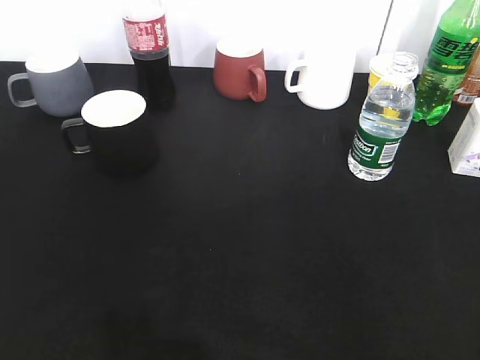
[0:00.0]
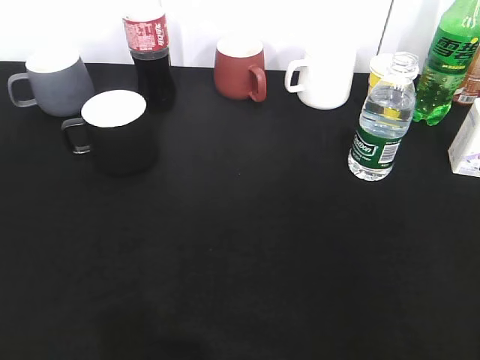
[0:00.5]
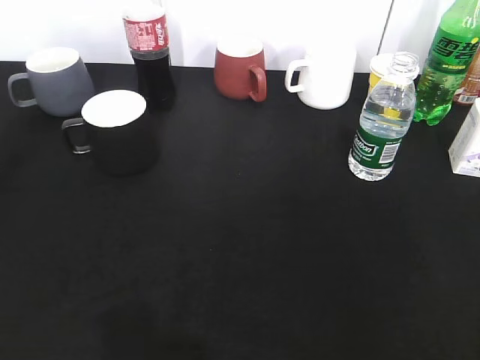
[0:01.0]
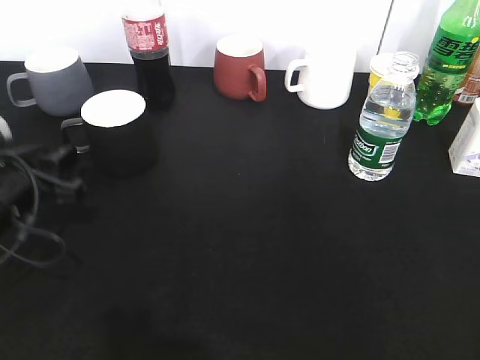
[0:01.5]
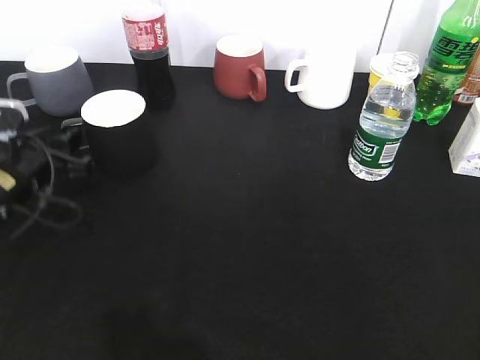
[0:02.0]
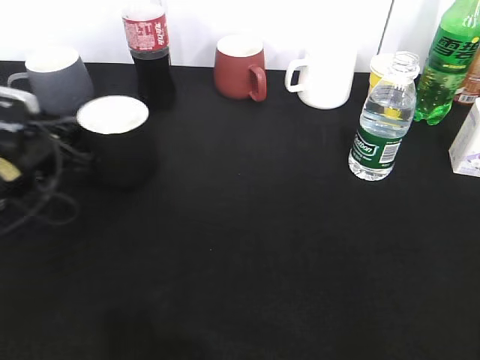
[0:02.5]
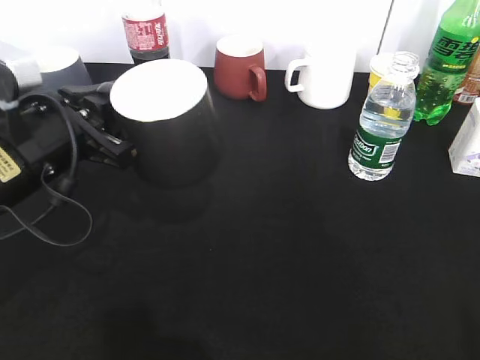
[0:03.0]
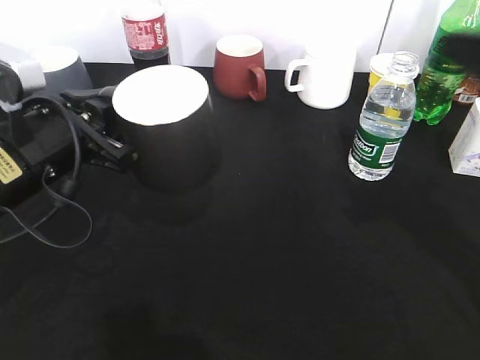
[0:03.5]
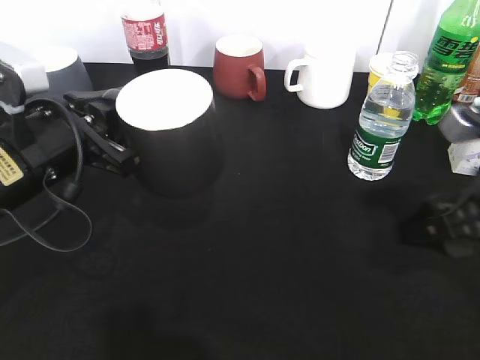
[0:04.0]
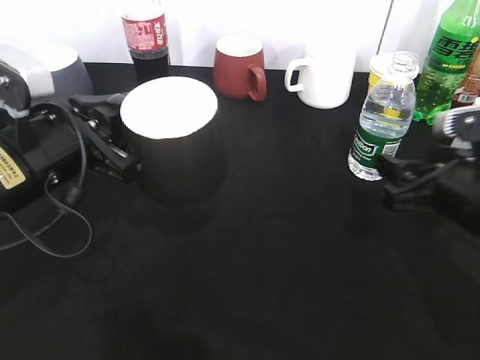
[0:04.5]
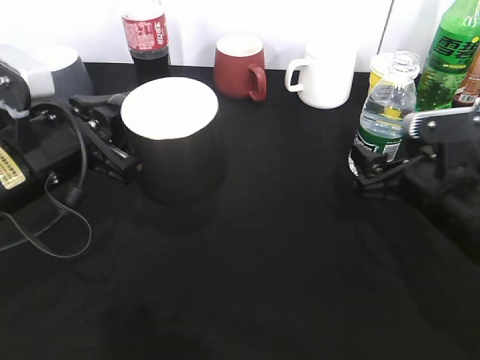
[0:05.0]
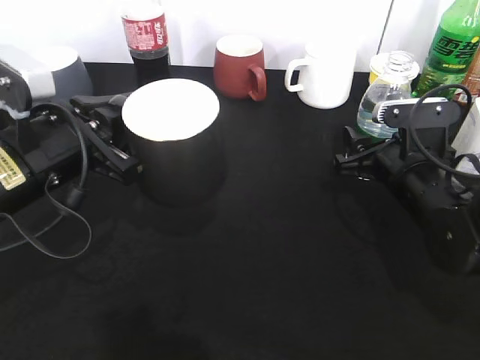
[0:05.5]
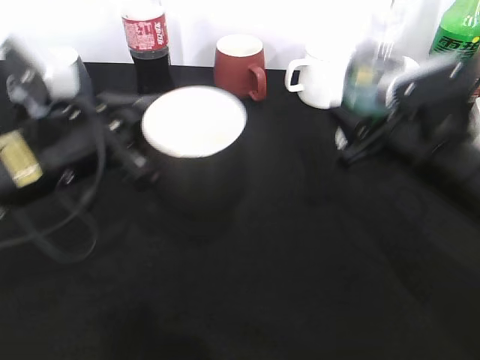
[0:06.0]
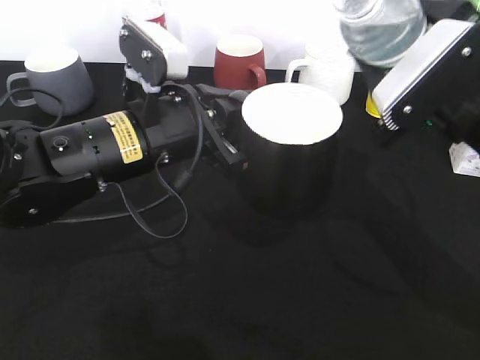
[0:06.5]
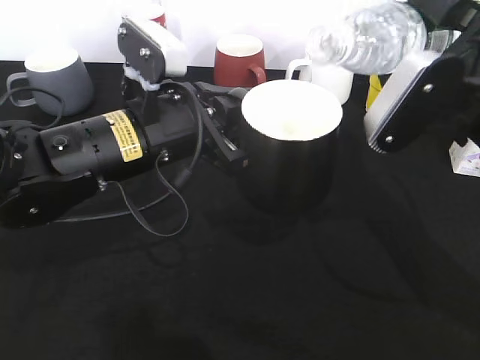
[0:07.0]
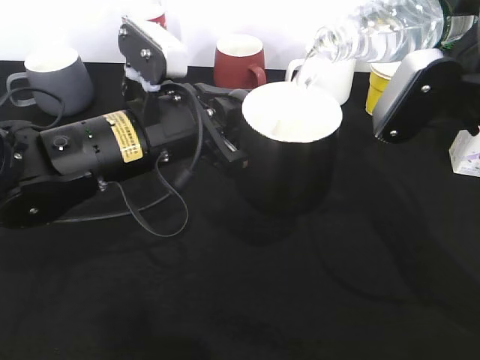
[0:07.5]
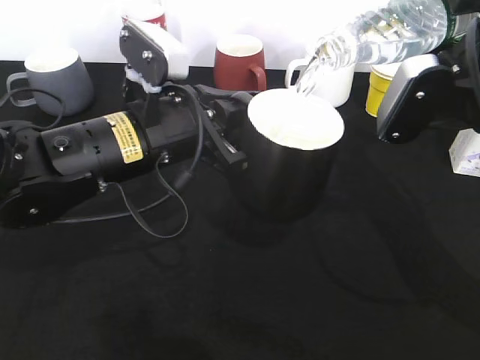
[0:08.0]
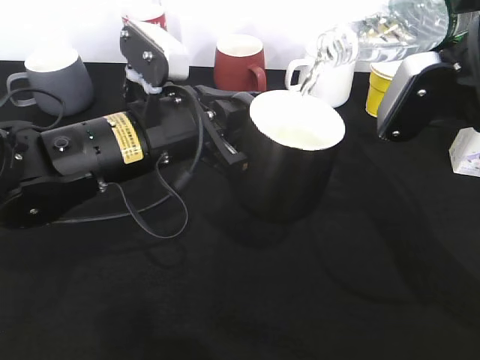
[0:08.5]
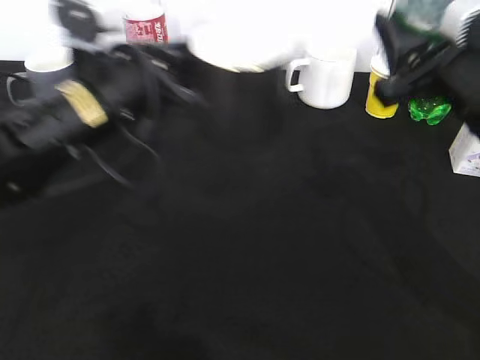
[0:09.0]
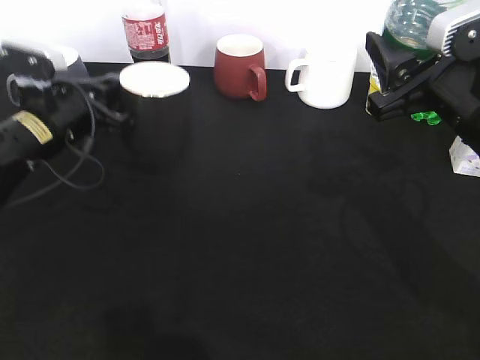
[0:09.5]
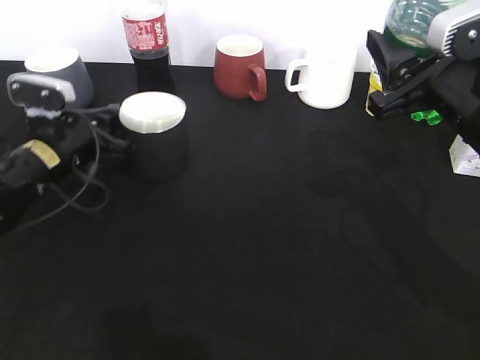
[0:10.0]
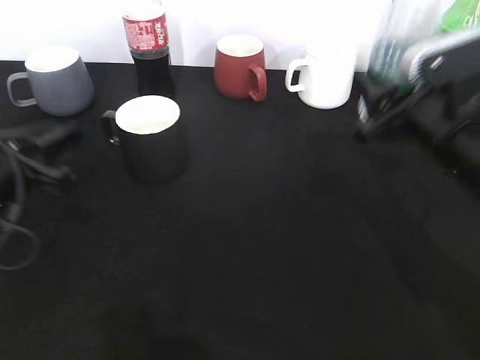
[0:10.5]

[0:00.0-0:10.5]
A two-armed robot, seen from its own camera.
Step, 0:00.5 to 0:02.0: Grasp the black cup with left gripper.
Step, 0:03.0 to 0:05.5: Grasp the bottle with water with right gripper.
Step, 0:06.0 to 0:08.5: Pour the water from bottle to cup with right gripper.
Step, 0:09.0 to 0:10.0: Place the black cup on the table with left gripper.
0:00.0 to 0:02.0: The left gripper moves forward and downward, about 35 cm.
0:02.0 to 0:04.0: The right gripper shifts about 20 cm forward. The left gripper heads upward, to the right and backward, covering approximately 10 cm, and closes its fingers.
0:04.0 to 0:06.5: The left gripper goes about 10 cm to the right. The right gripper is displaced to the left and upward by roughly 10 cm, and closes.
0:08.5 to 0:10.5: The left gripper is displaced to the left by some 15 cm, and opens; the right gripper travels downward by roughly 5 cm.

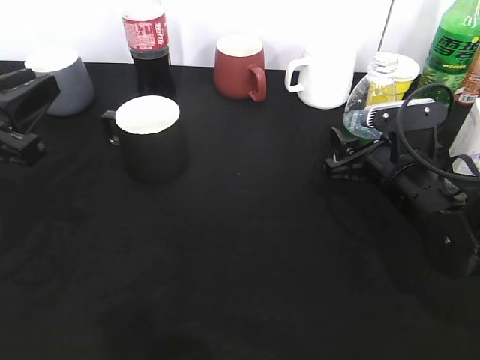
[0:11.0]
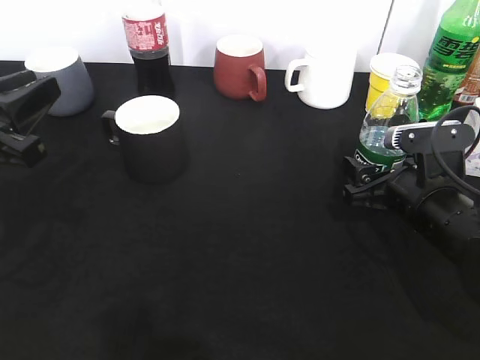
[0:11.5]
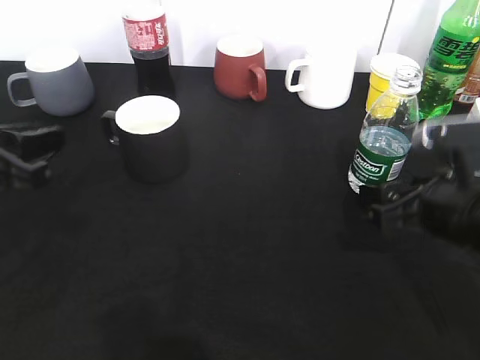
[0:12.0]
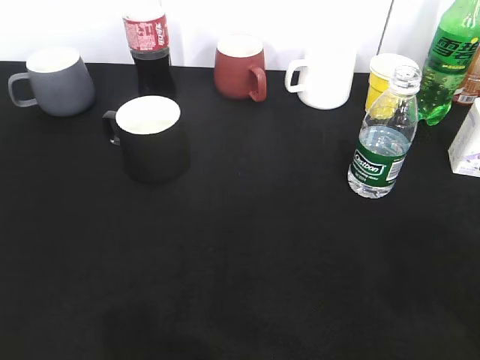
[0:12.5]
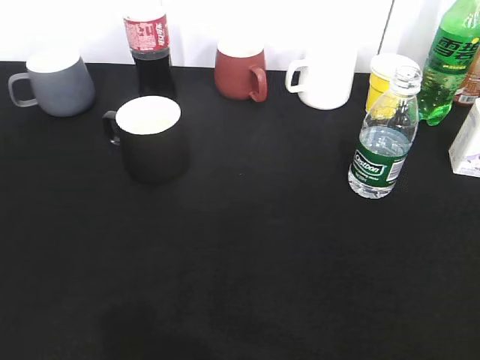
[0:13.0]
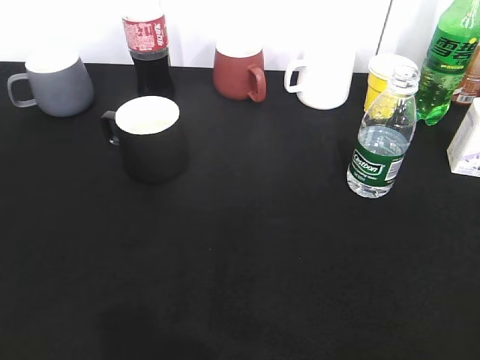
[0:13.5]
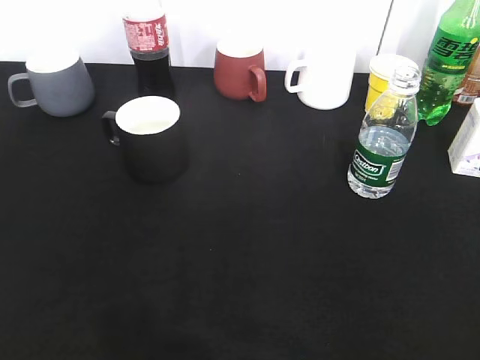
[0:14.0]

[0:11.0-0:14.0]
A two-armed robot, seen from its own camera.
Step, 0:11.0 to 0:12.0: Place the water bottle on the table with right gripper.
0:11.0 to 0:12.5: The right gripper heads upward and backward, covering approximately 30 cm, and opens. The left gripper travels backward and upward by roughly 20 cm.

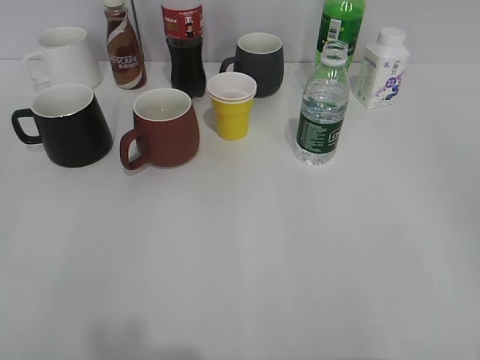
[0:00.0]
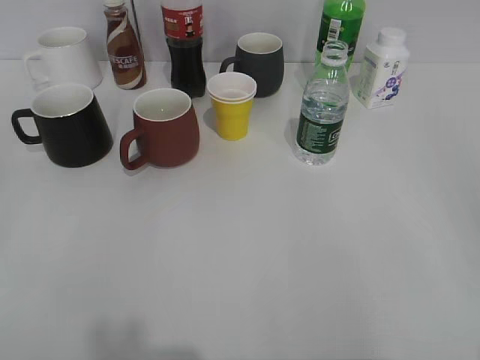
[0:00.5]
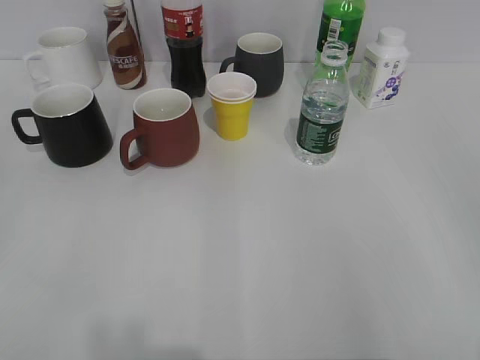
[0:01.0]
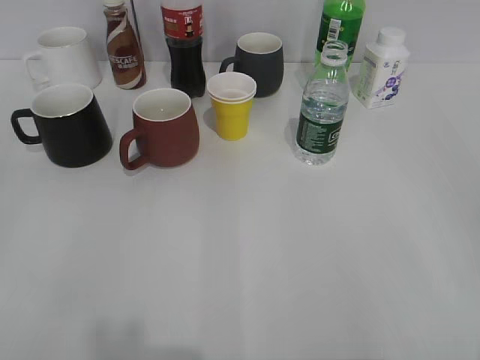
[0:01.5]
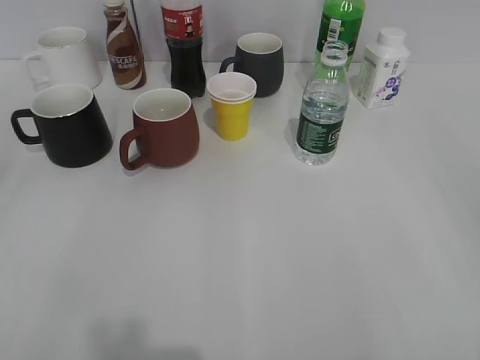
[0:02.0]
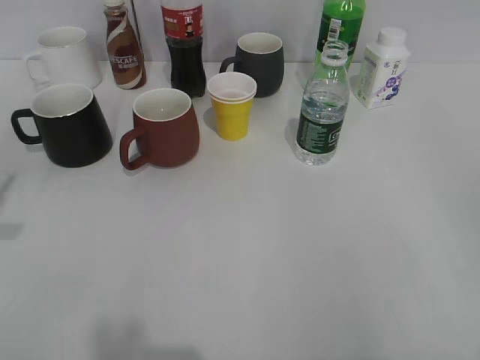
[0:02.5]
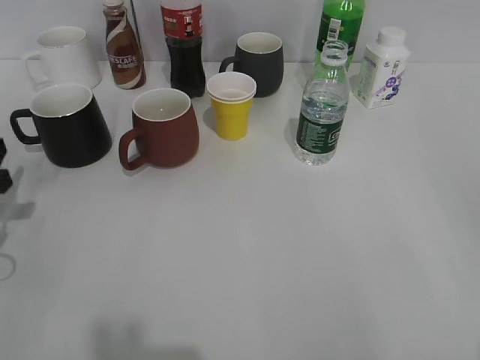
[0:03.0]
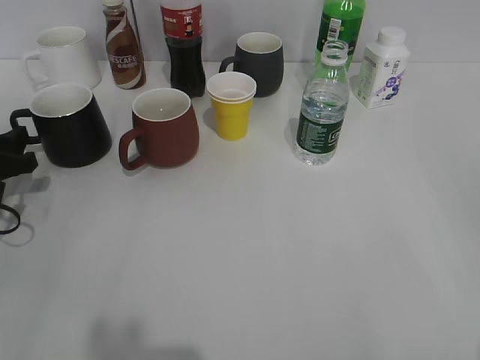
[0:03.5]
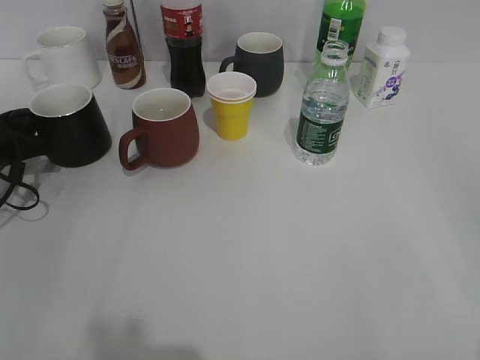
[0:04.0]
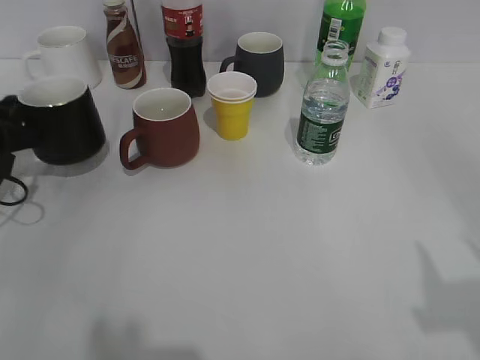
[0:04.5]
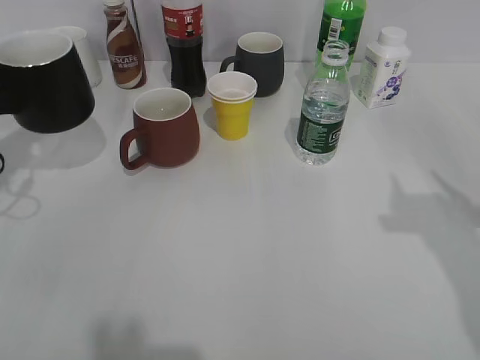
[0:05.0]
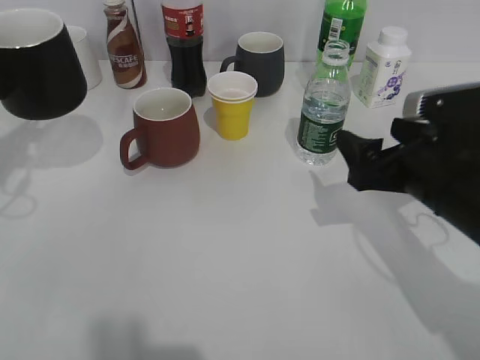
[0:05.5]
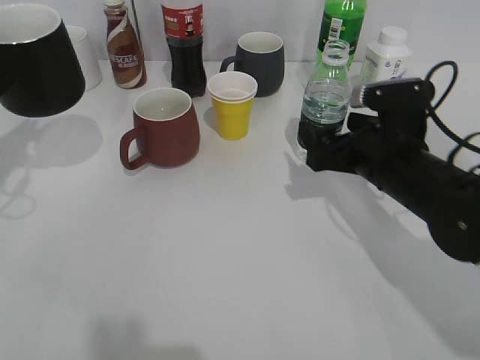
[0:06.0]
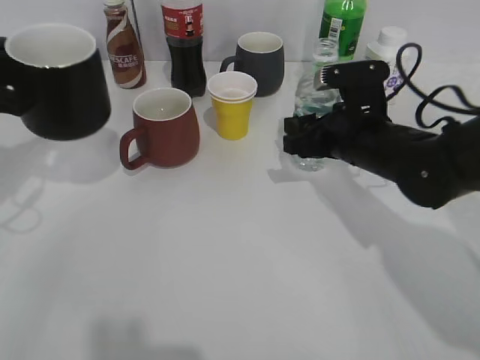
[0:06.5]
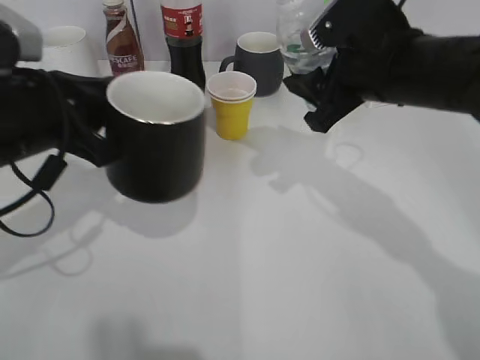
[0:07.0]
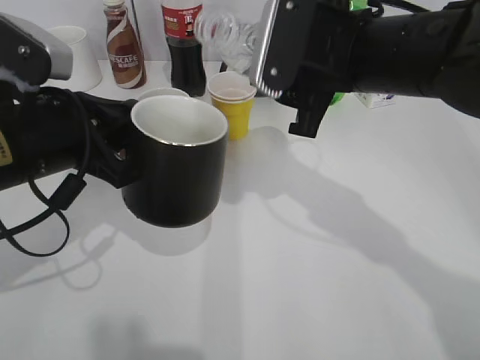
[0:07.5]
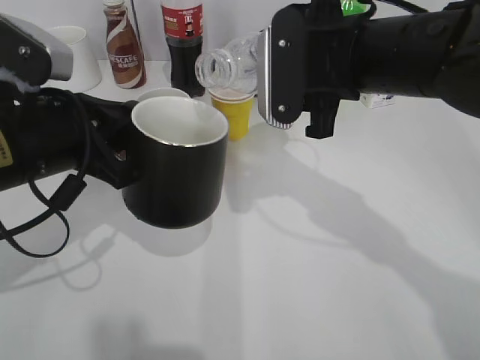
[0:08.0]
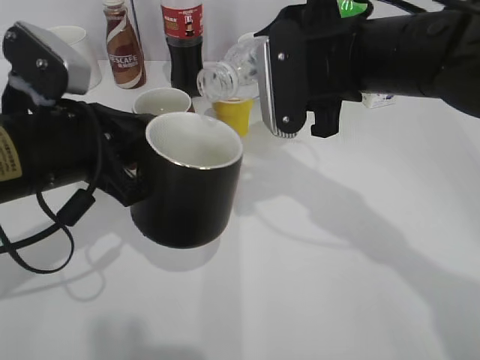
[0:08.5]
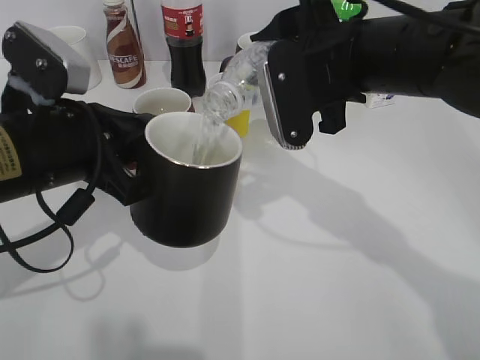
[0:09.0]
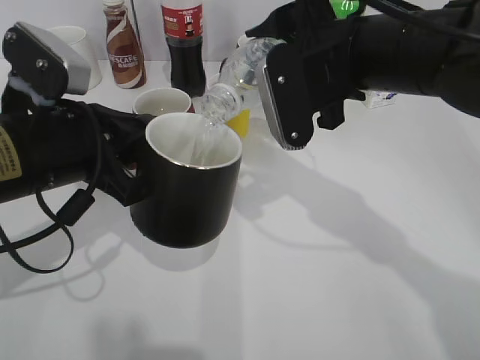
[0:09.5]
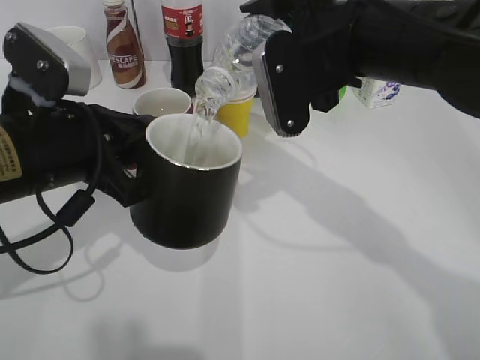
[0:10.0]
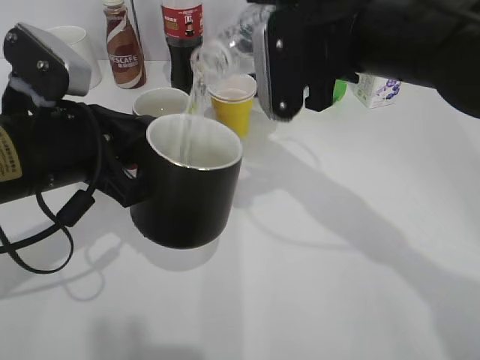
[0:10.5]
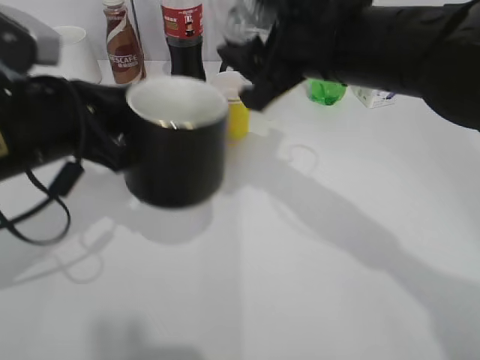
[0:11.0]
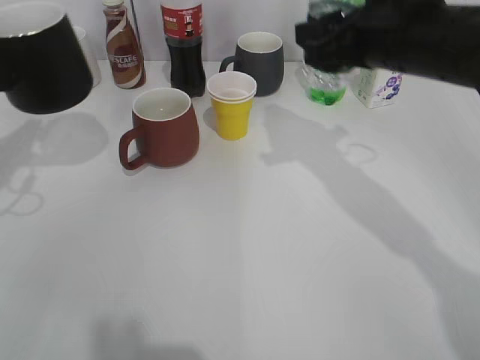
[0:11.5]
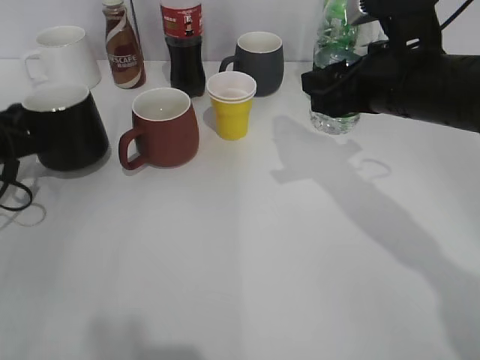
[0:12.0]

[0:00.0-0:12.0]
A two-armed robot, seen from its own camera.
Step, 0:02.0 to 0:04.0: Grasp the black cup with left gripper.
Step, 0:04.5 to 0:05.0: Lift the black cup with left gripper.
Step, 0:05.5 to 0:06.0: Grasp the bottle with water with right gripper.
Step, 0:06.5 to 0:10.5: Pour the water from bottle to cup with right gripper.
0:02.0 to 0:04.0: The left gripper moves forward and downward, about 40 cm.
0:04.0 to 0:06.0: The right gripper is displaced forward, downward and to the left by about 35 cm, and opens. Meanwhile the left gripper heads upward, covering about 10 cm, and closes.
0:06.0 to 0:08.0: The right gripper shifts about 15 cm upward and to the left, and closes; the left gripper travels to the right and backward by approximately 15 cm.
0:10.0 to 0:12.0: The left gripper moves to the left, forward and downward, about 20 cm. The right gripper travels to the right by approximately 5 cm.
